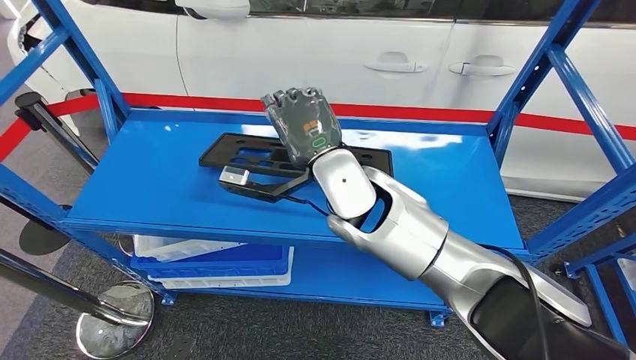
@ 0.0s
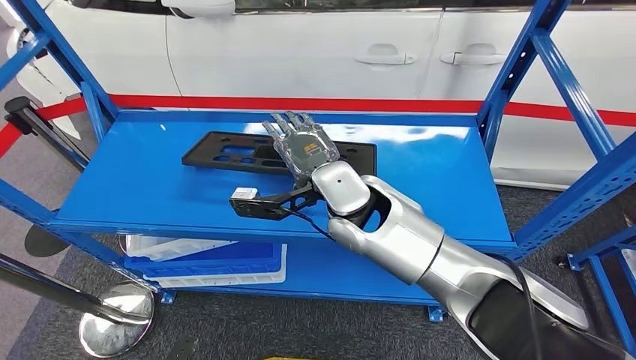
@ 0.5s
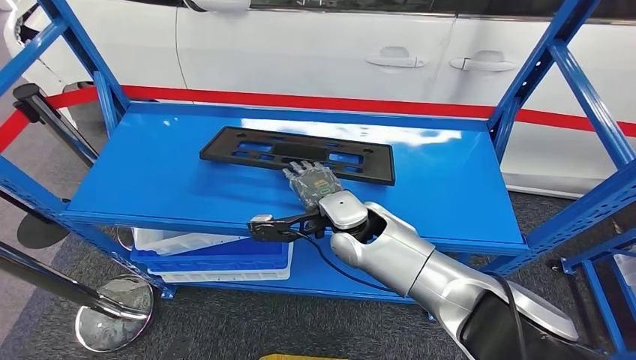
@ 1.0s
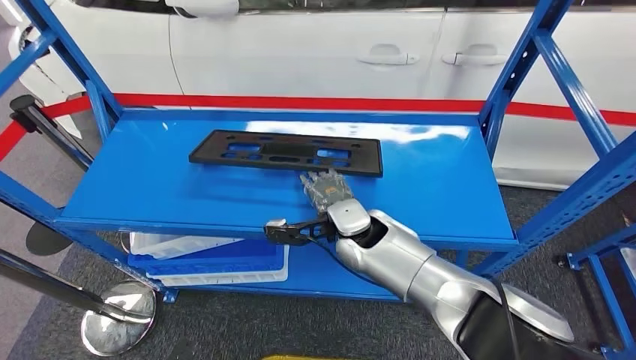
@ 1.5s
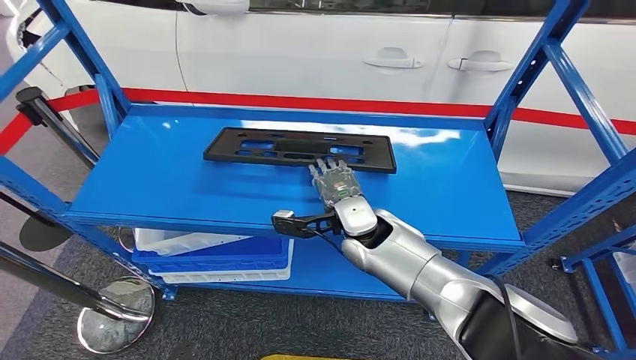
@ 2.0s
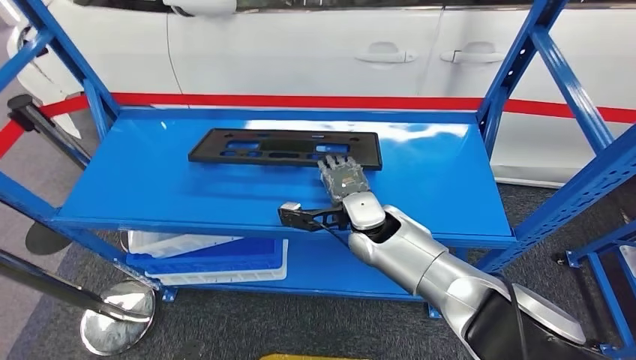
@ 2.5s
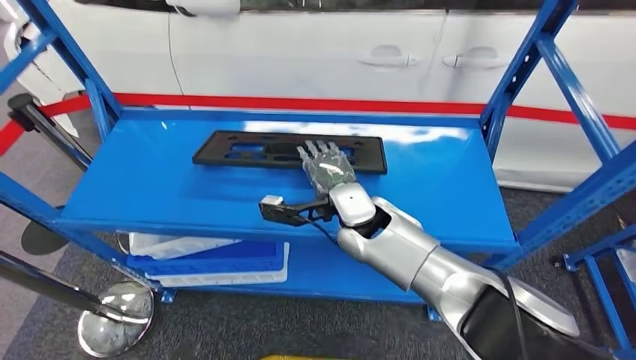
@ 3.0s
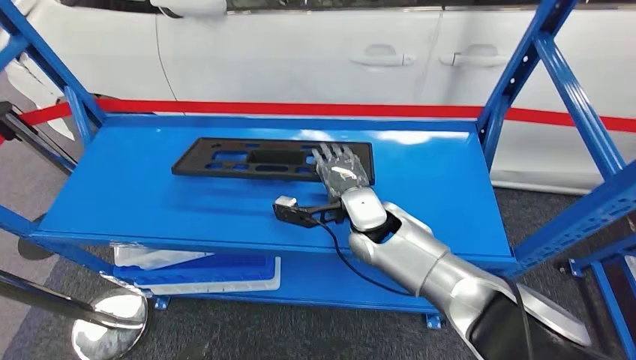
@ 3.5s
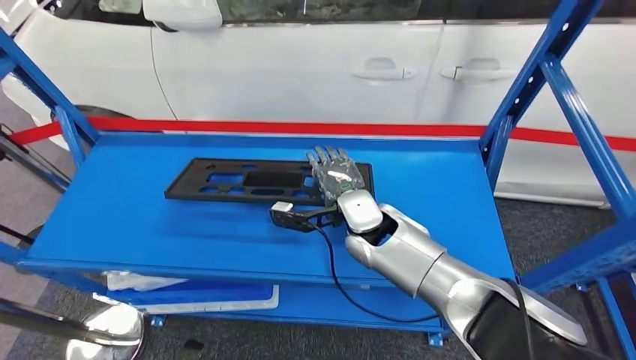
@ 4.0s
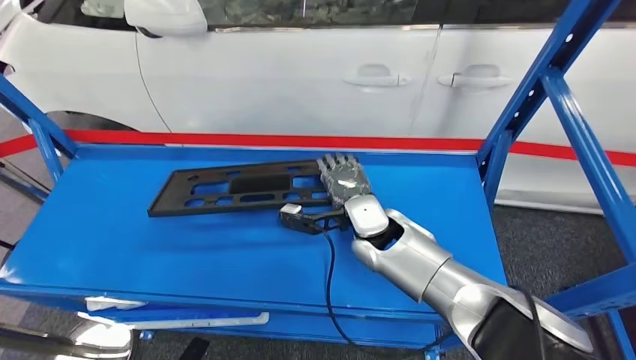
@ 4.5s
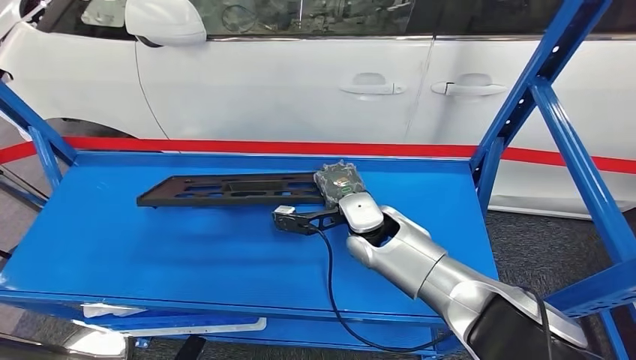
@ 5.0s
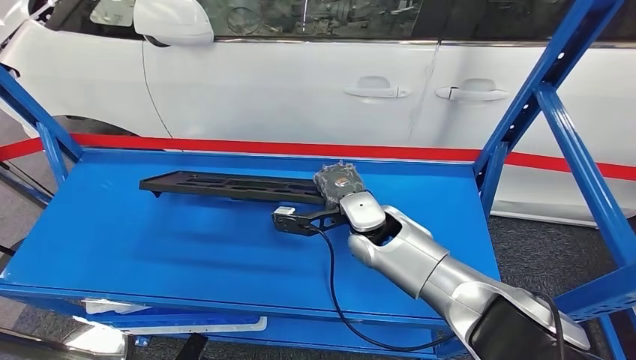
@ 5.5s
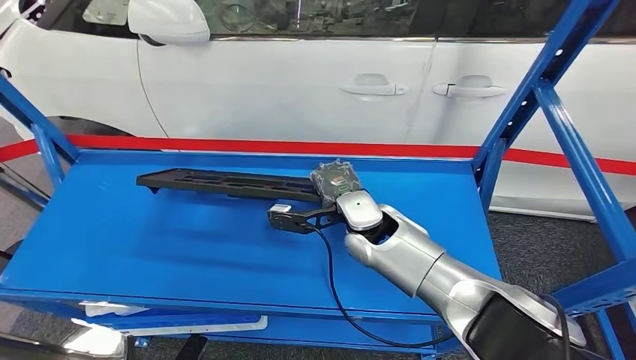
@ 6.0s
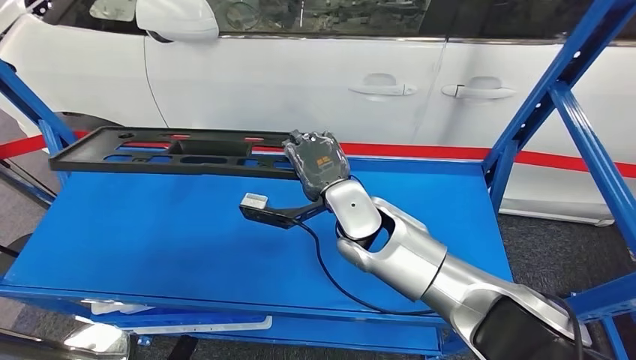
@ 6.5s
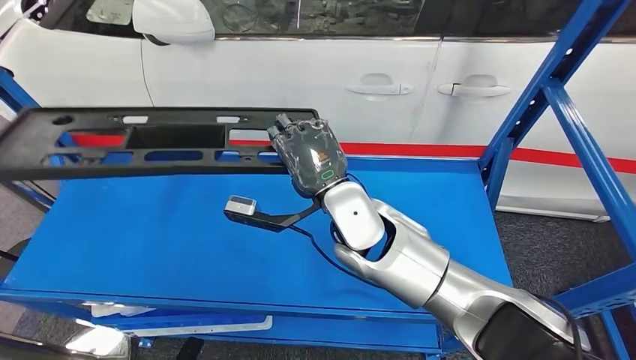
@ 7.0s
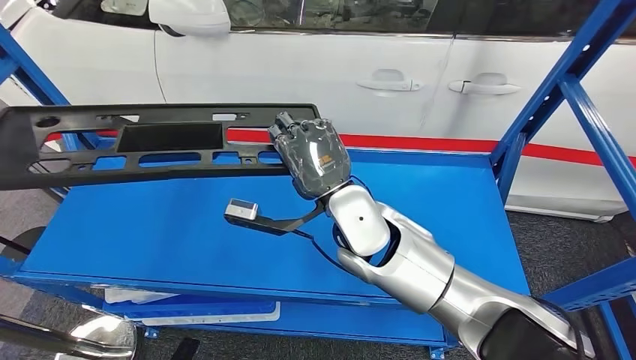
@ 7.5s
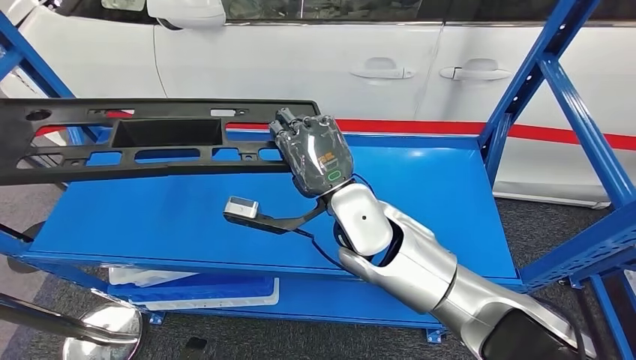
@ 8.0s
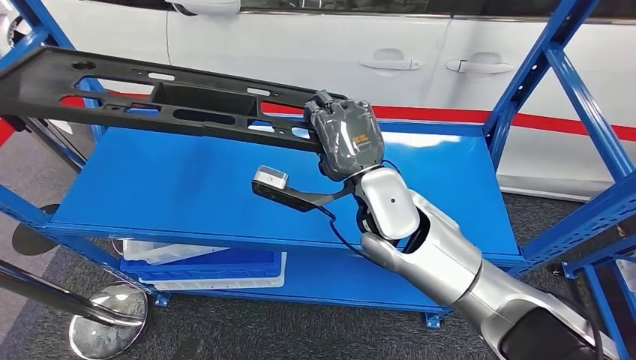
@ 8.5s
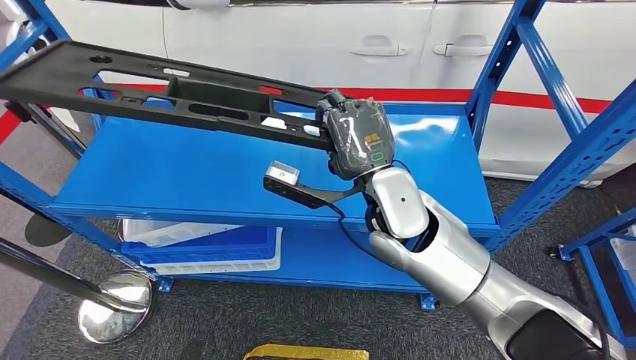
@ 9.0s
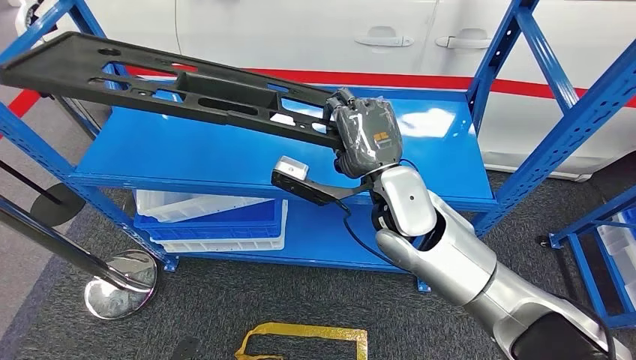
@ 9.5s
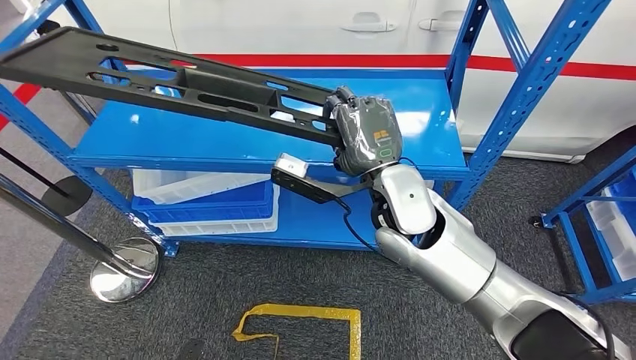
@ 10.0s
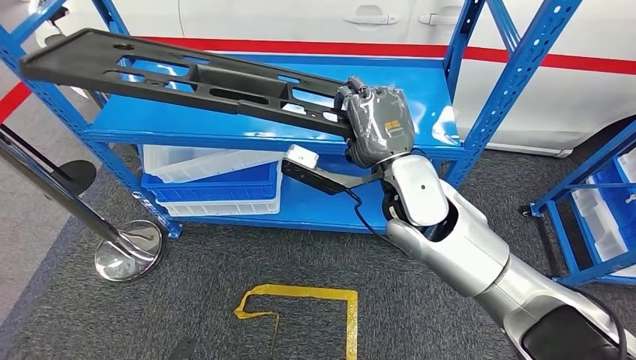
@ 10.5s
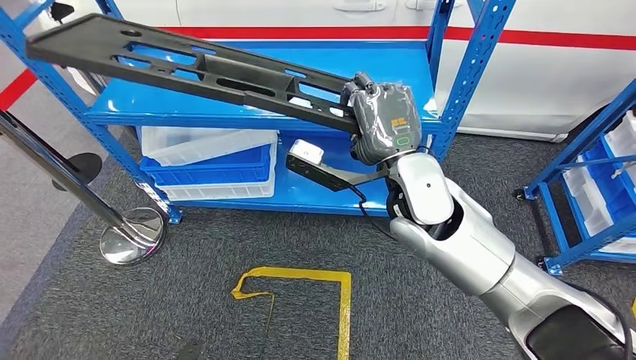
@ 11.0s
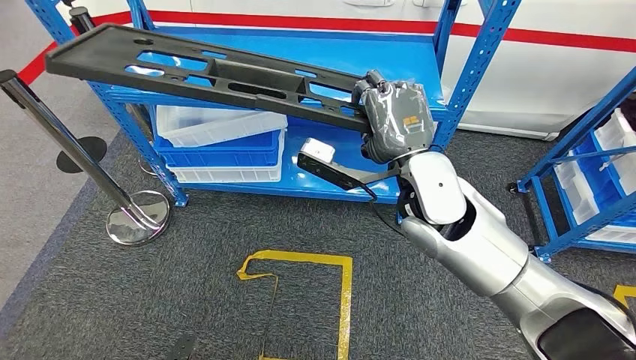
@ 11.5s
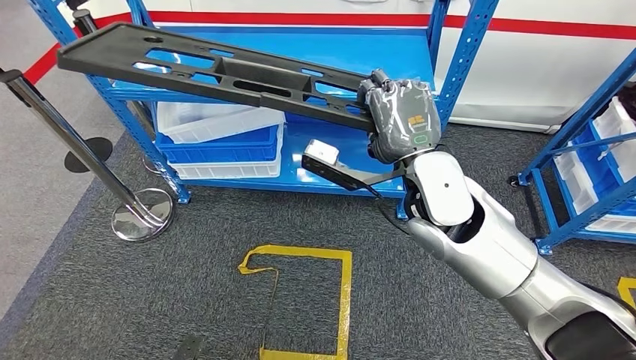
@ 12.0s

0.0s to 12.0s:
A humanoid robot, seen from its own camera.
Step, 0.0s to 6.5s: Pick up the large material from the shelf.

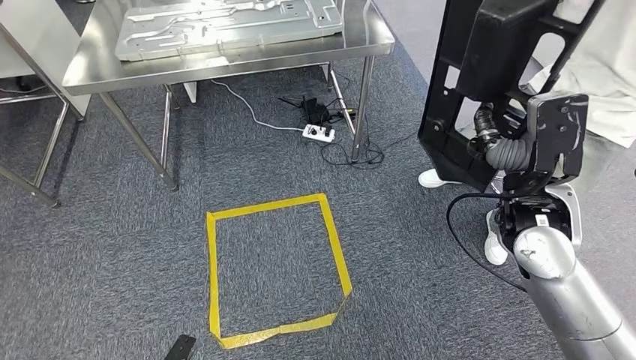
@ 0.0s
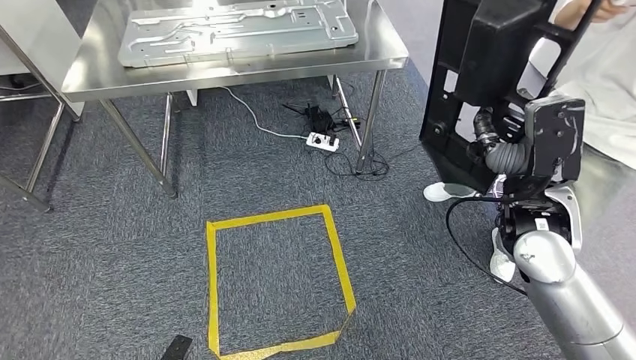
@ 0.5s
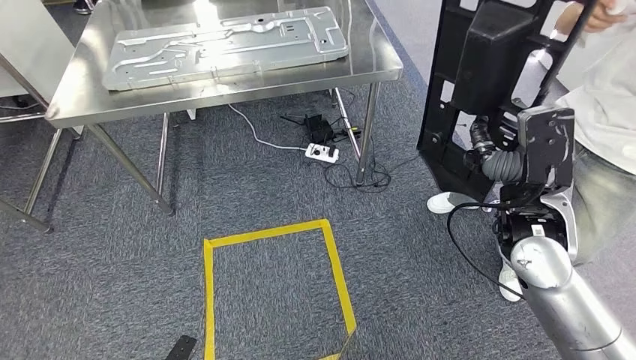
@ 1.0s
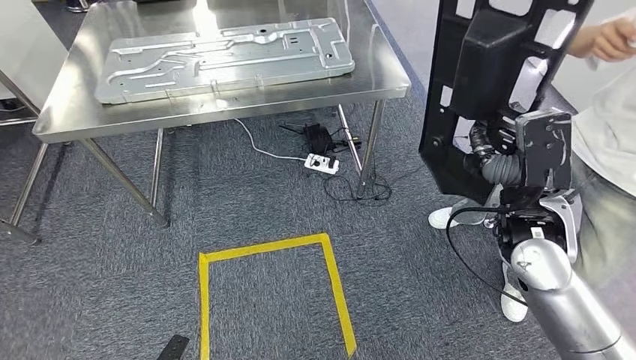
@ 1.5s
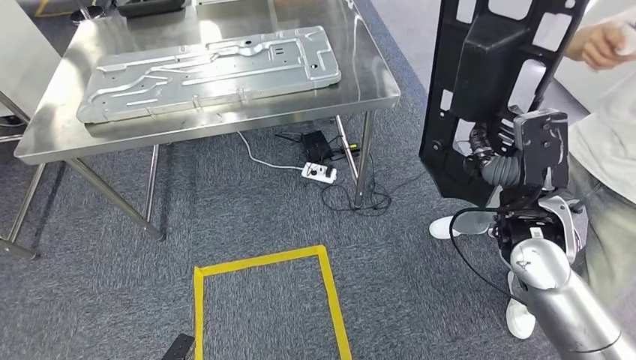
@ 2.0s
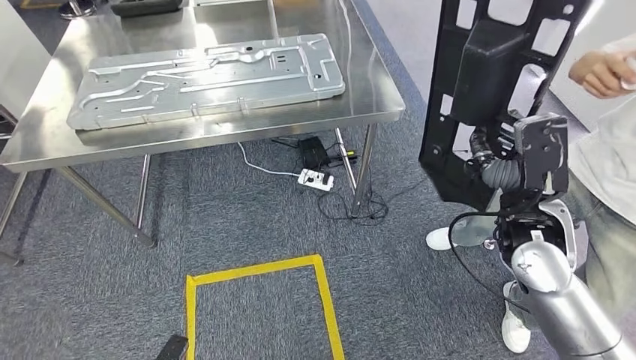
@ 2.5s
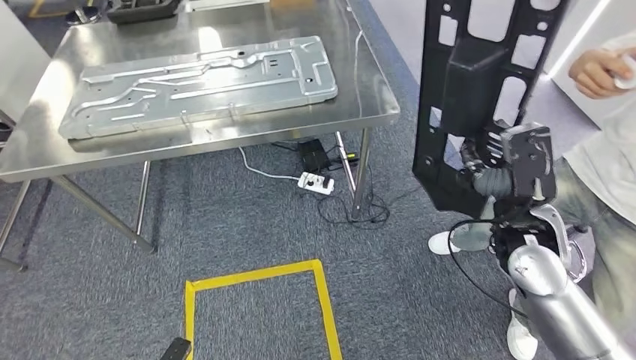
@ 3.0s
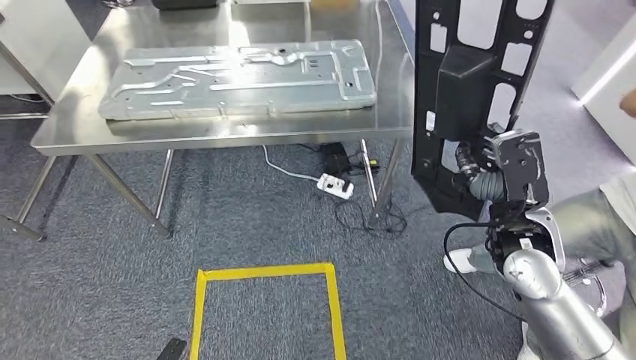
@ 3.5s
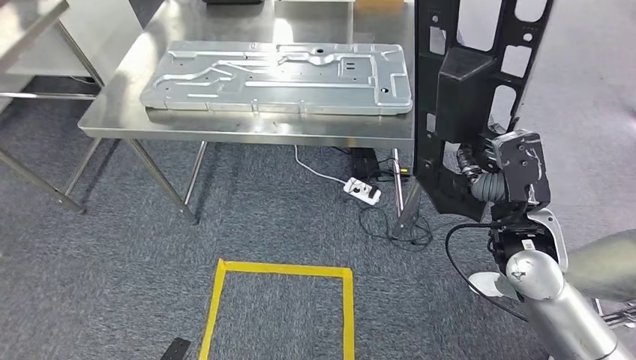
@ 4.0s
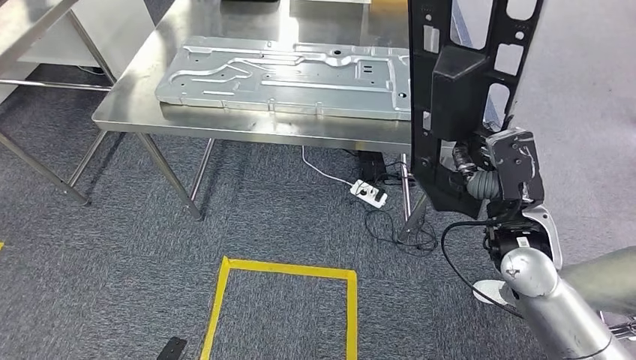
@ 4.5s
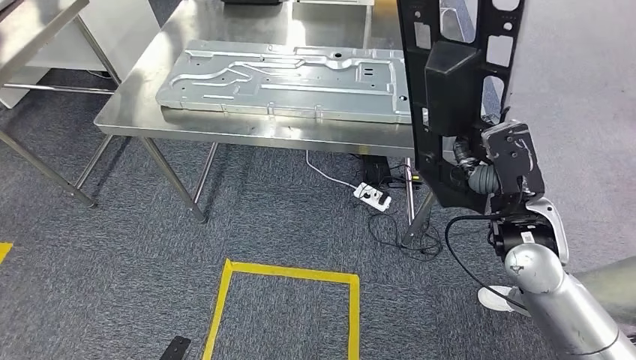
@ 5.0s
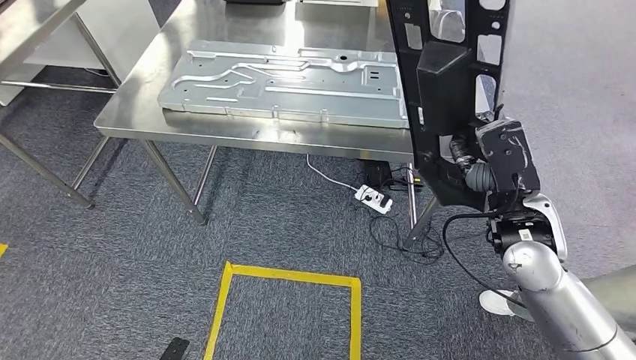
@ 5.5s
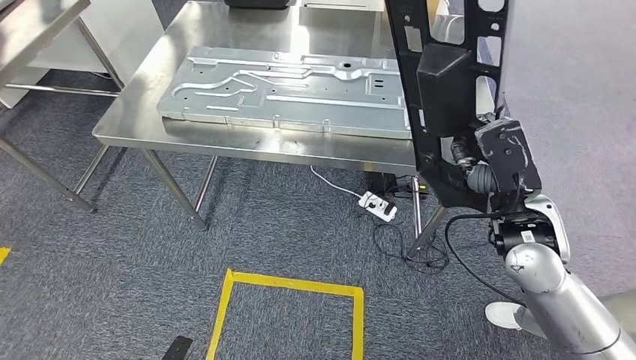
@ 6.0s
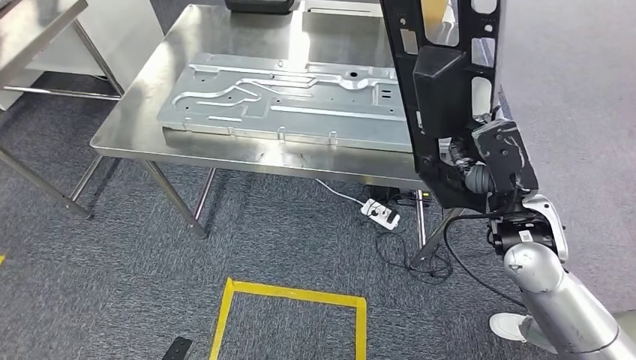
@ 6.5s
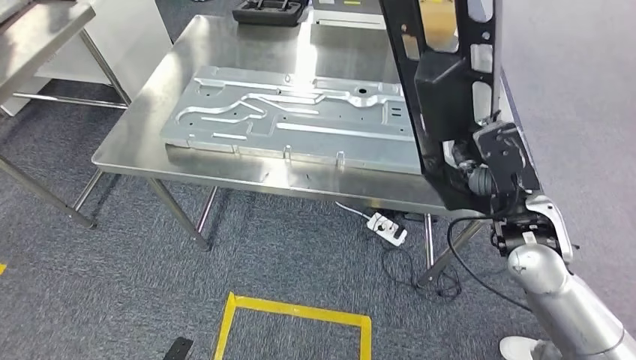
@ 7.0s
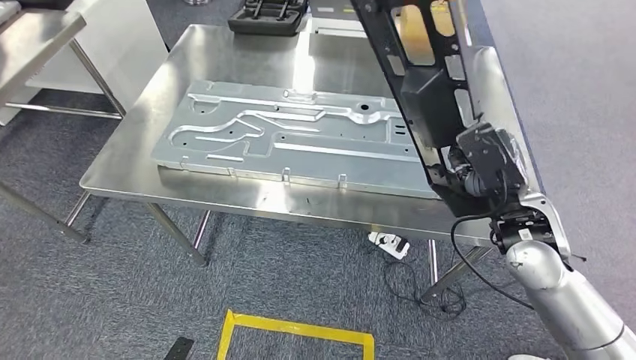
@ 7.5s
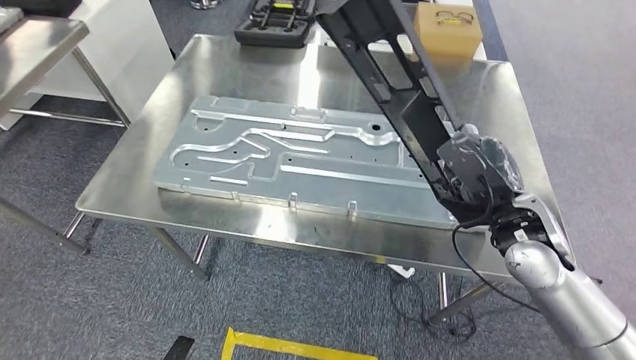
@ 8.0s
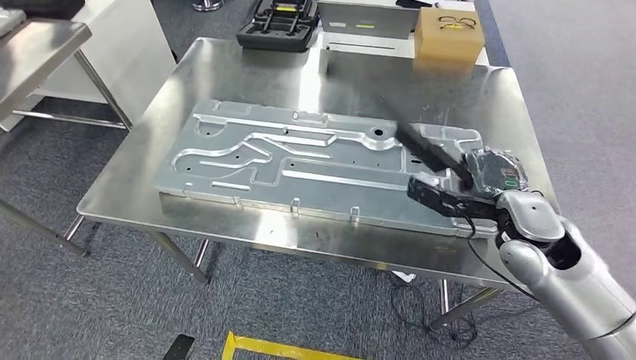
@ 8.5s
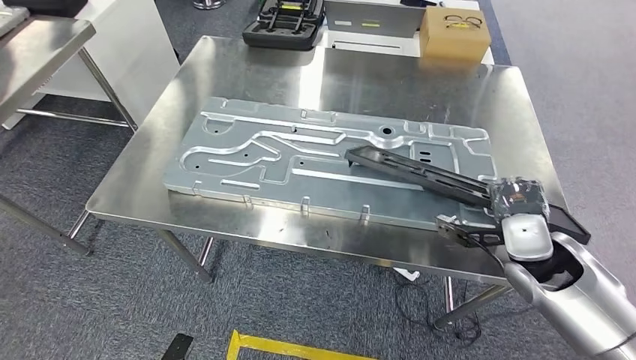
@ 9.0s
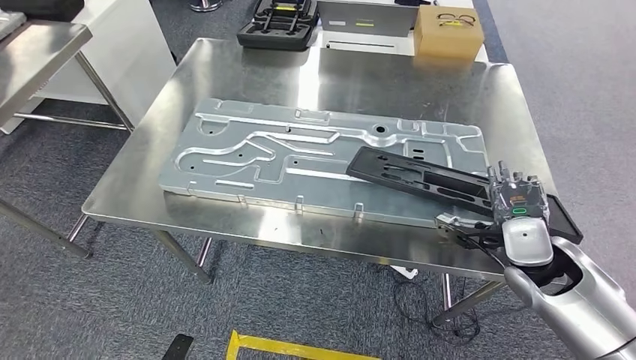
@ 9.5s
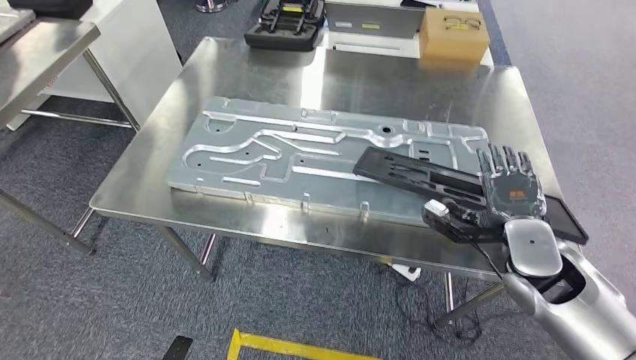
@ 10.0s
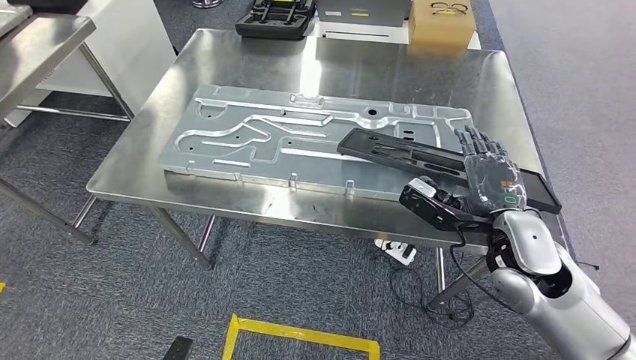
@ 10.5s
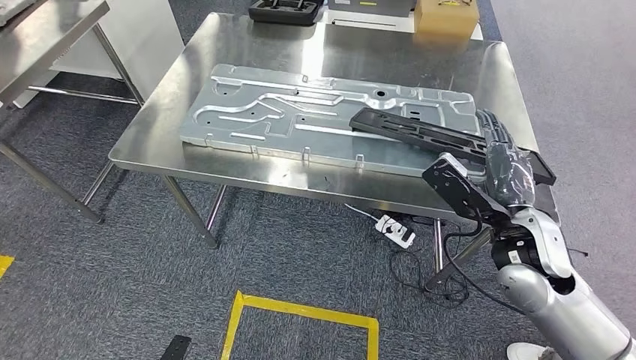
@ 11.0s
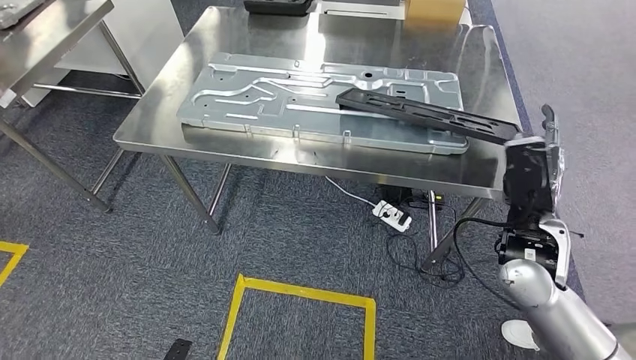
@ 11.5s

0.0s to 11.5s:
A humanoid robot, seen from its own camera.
Step, 0.0s to 2.5s: Move the large material to the workbench.
